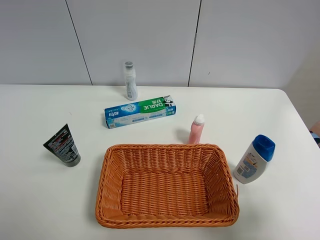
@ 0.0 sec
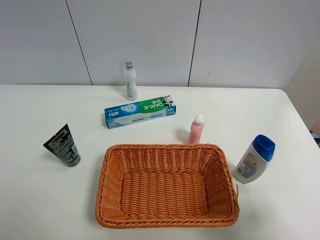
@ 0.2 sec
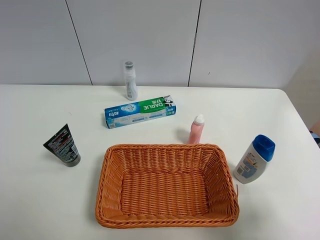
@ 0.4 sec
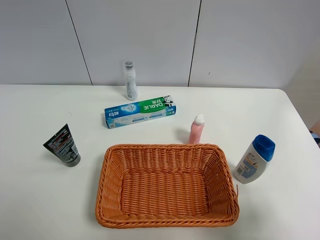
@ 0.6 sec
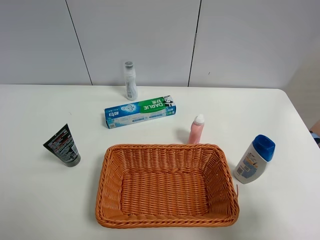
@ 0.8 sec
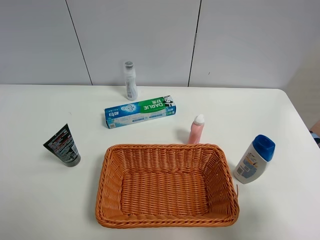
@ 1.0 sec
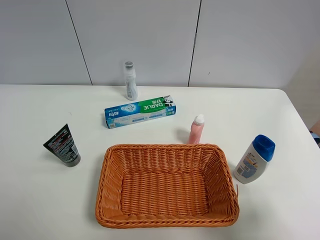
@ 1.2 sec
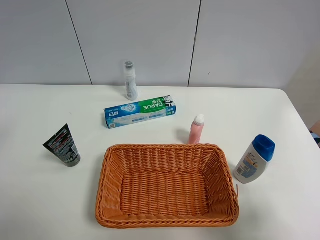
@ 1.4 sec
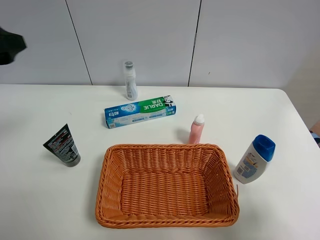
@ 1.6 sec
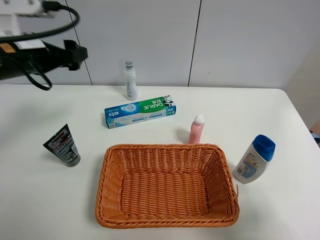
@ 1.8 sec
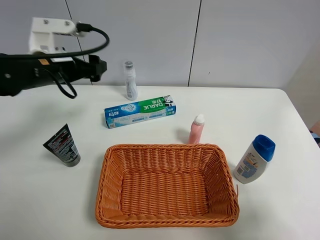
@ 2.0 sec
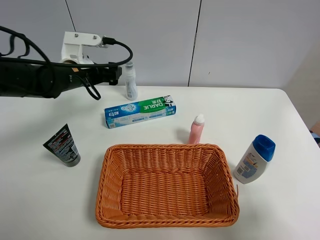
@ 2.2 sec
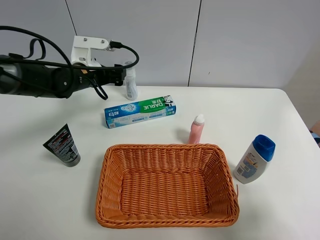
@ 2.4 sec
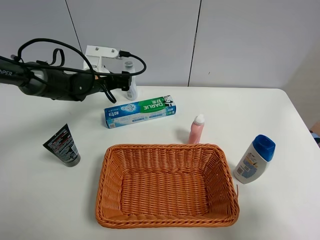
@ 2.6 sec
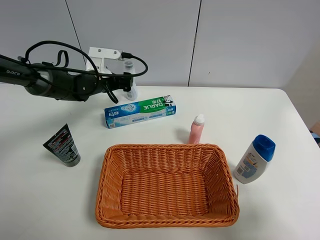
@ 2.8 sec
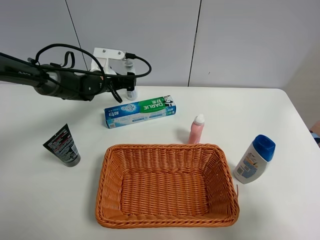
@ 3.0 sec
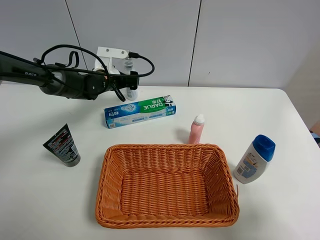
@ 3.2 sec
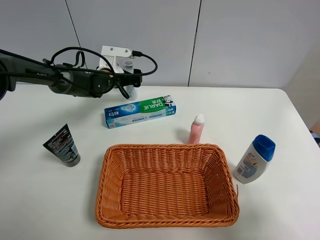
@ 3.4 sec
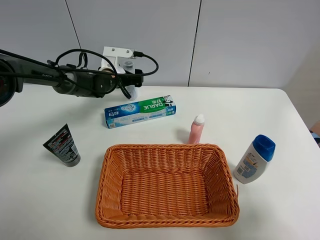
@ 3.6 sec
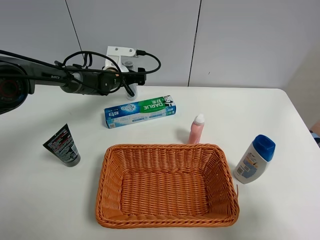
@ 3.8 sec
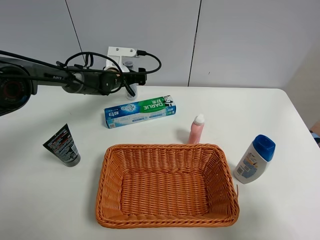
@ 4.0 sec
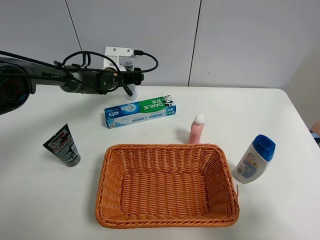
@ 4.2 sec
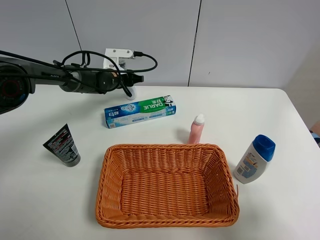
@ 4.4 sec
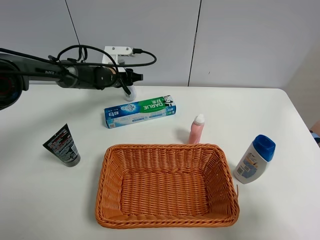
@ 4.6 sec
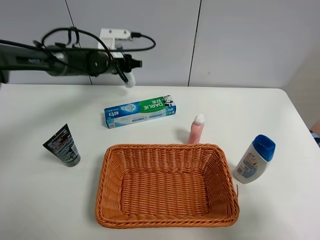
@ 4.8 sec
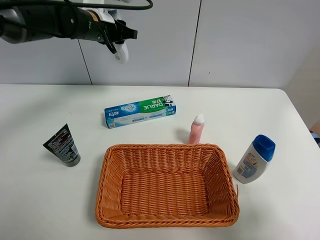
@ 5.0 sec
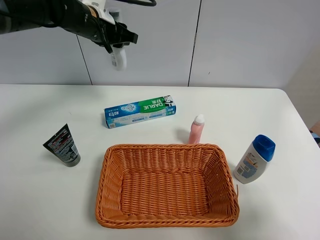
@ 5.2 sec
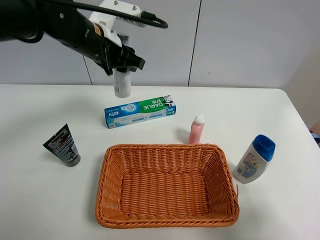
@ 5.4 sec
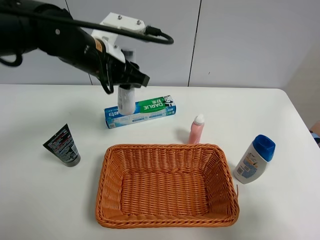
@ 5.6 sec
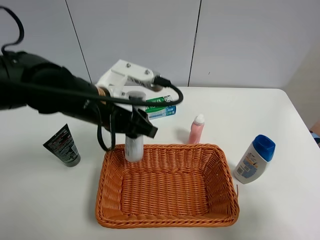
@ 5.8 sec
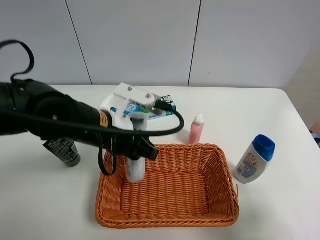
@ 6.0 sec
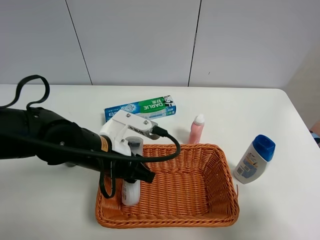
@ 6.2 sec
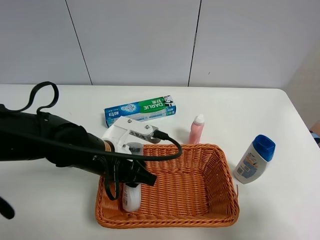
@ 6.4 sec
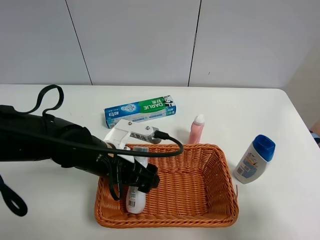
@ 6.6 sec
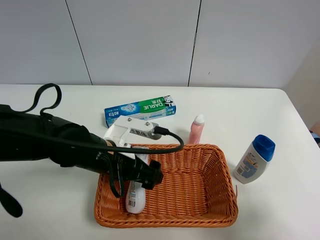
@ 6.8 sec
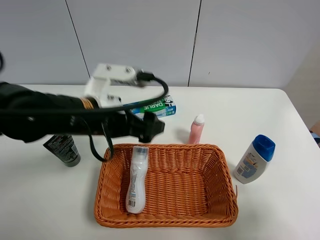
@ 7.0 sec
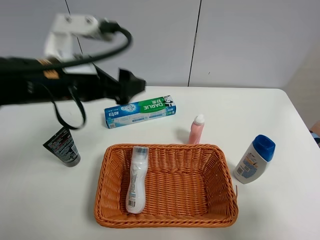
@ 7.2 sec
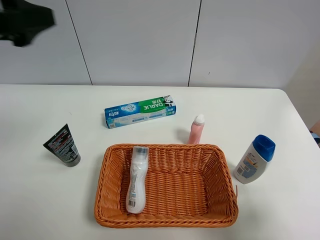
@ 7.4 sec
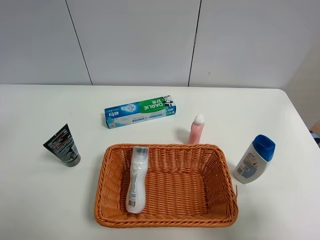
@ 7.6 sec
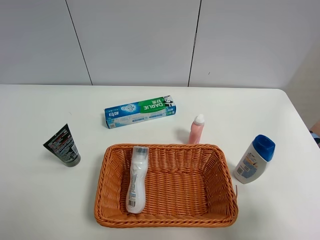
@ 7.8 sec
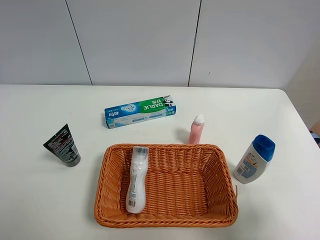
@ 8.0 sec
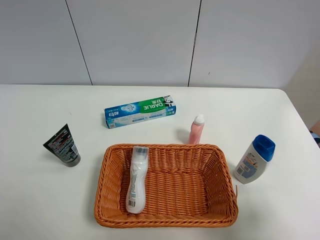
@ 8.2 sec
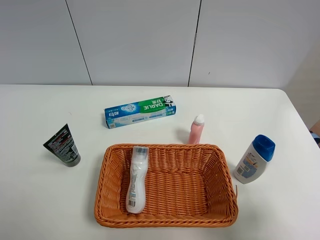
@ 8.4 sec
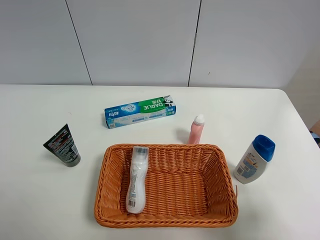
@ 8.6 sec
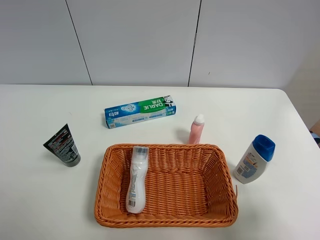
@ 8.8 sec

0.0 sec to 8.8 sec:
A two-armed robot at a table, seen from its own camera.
Task of the whole recording: Place the object closest to the toothpaste in the basket.
Step, 0.0 sec to 4.4 sec: Grasp the cleaning agent with left gripper.
Step, 4.6 sec to 7.0 sec: Place the cleaning agent in the basket with left gripper.
1.4 sec to 3.0 sec: The left gripper heads forward, downward and to the right, covering approximately 40 cm.
3.0 sec to 4.4 sec: The left gripper is displaced forward by approximately 5 cm, and closes up.
4.4 sec to 5.8 sec: The left gripper is displaced backward and upward by approximately 30 cm.
5.8 sec to 7.4 sec: The left gripper shifts approximately 25 cm to the left and upward, and opens its fingers.
7.4 sec to 8.8 sec: The left gripper shifts about 20 cm backward and downward.
